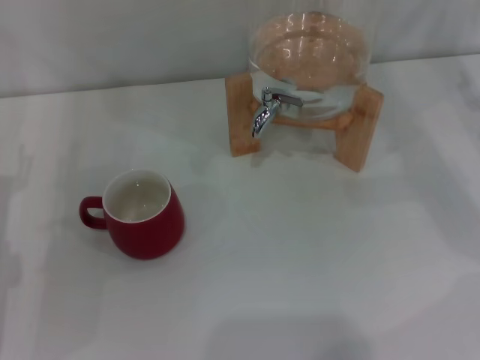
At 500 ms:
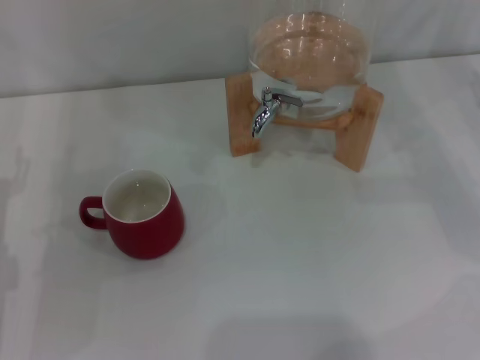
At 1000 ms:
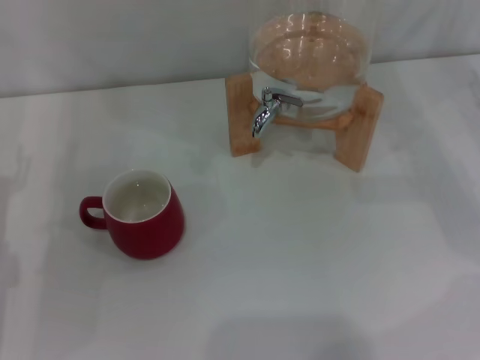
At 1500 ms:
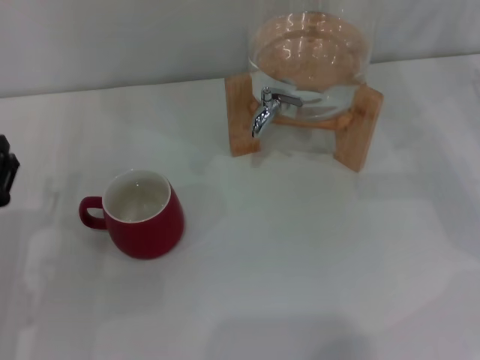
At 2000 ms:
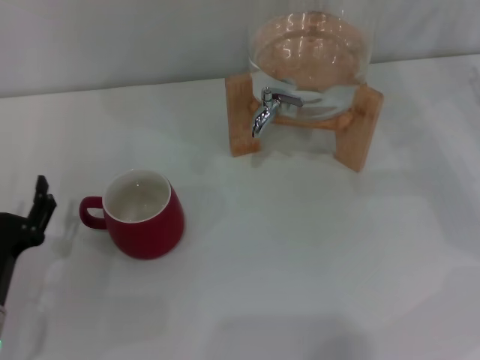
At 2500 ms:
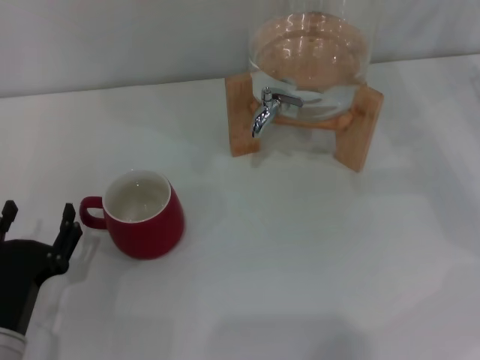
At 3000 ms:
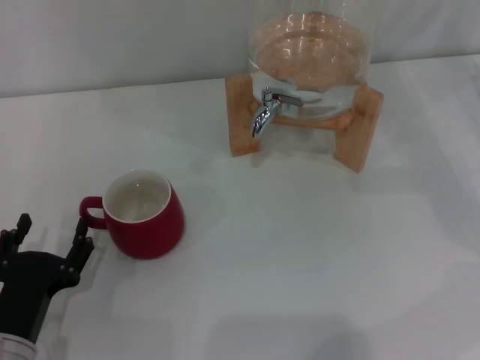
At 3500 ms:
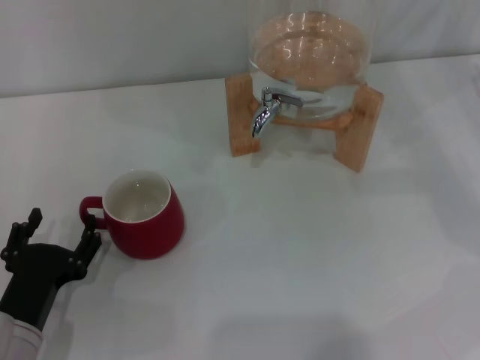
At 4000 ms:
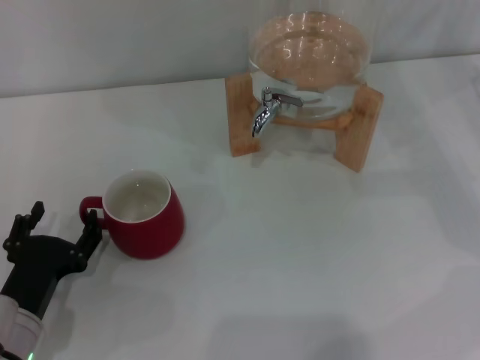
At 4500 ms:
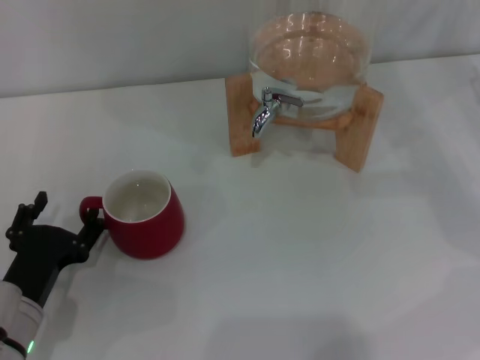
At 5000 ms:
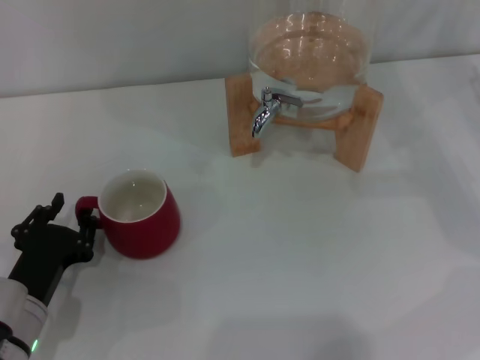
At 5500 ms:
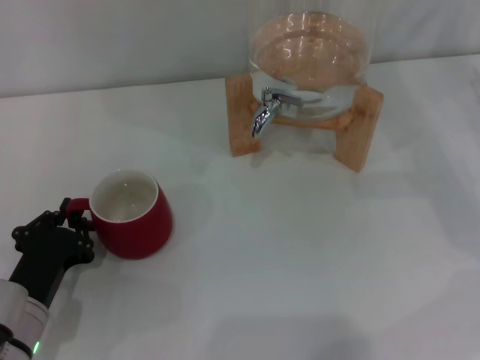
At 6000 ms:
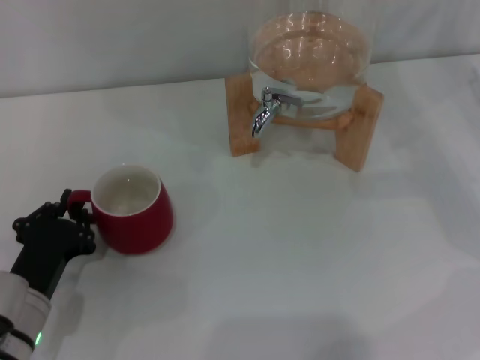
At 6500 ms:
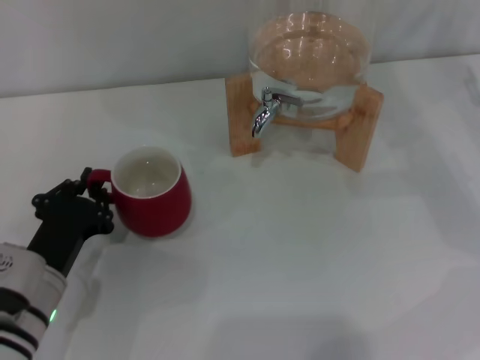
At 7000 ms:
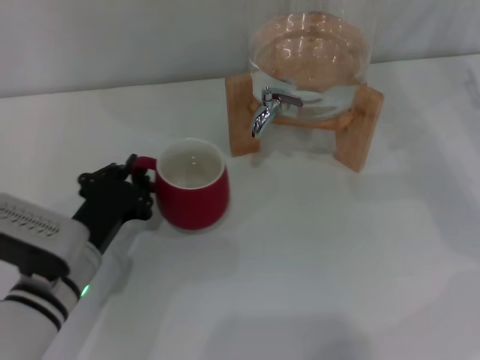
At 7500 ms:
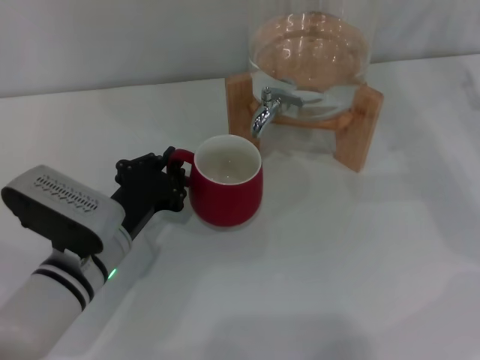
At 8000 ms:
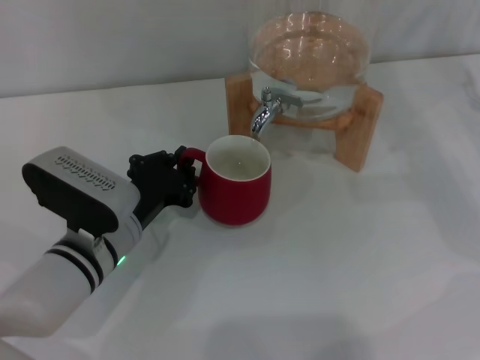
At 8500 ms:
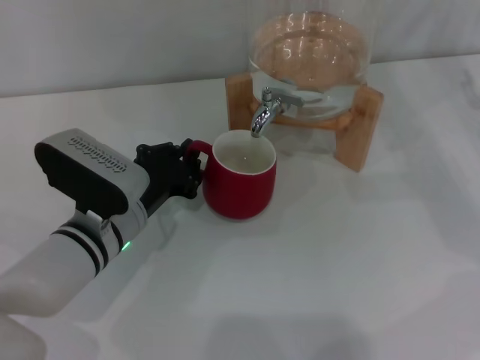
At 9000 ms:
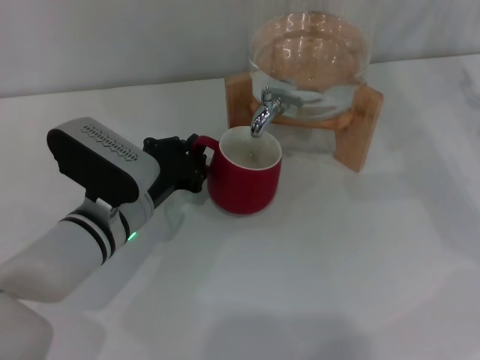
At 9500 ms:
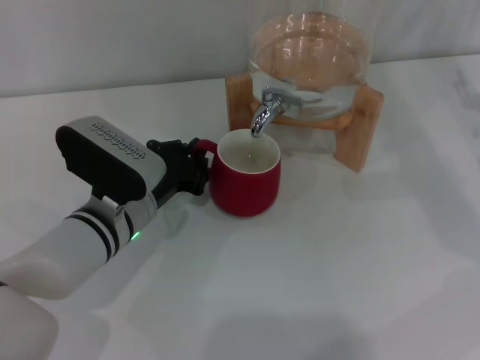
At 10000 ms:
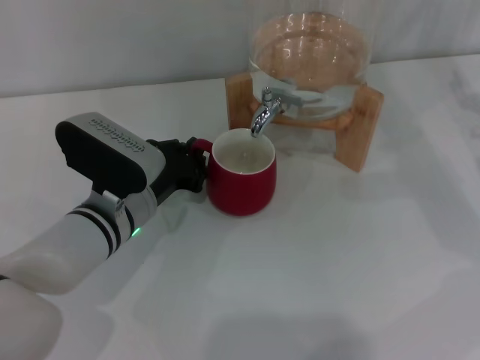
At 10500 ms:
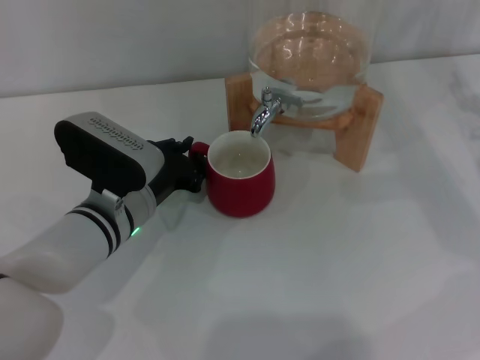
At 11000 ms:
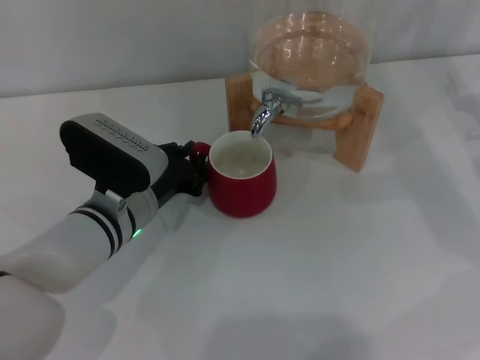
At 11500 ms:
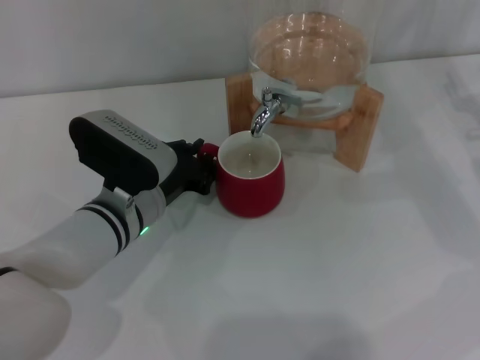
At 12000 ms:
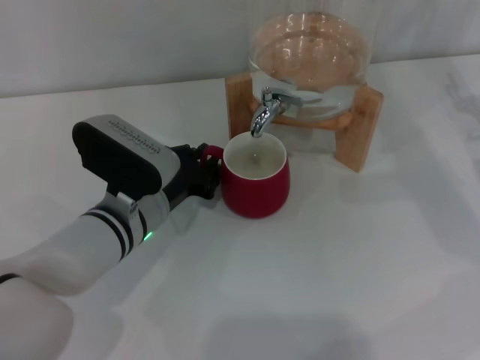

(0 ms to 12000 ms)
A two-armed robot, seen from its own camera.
Task of the whole recording: the left gripper pick up the red cup and place it horizontally under the faucet, the right gripper turn on the faucet to fill the cup, and then turn off the faucet.
0 ms - 2000 ms: The left gripper moves backward and downward, about 10 cm.
2000 ms - 4000 ms: The grippers stay close to where they were, moving slightly.
4000 ms - 6000 ms: The left gripper closes.
6000 ms - 8000 ms: The left gripper goes approximately 10 cm to the right and forward.
8000 ms - 10000 ms: The grippers stay close to where they were, moving slightly.
10000 ms - 12000 ms: The two grippers keep their place.

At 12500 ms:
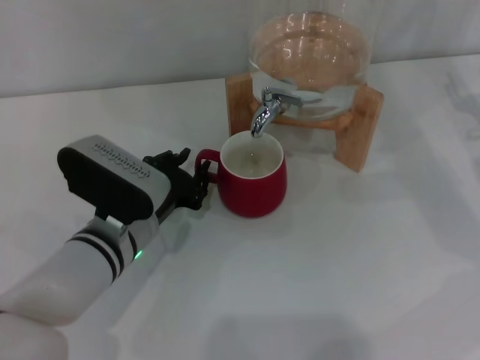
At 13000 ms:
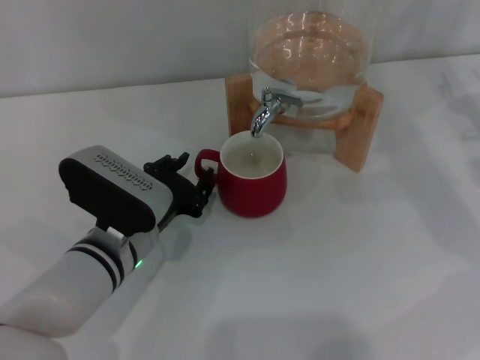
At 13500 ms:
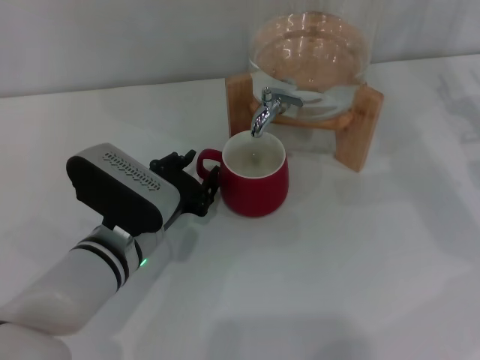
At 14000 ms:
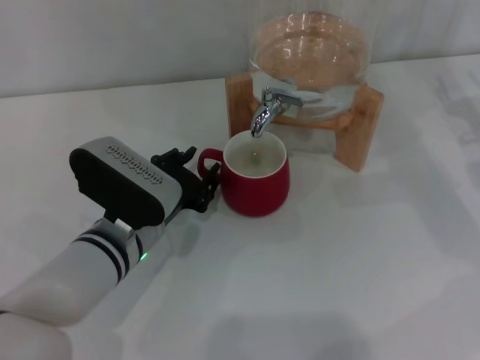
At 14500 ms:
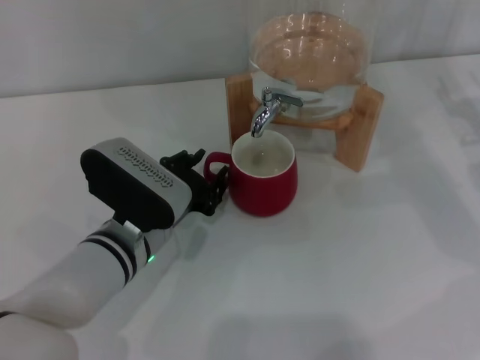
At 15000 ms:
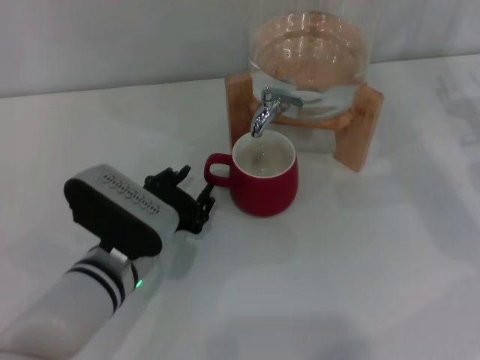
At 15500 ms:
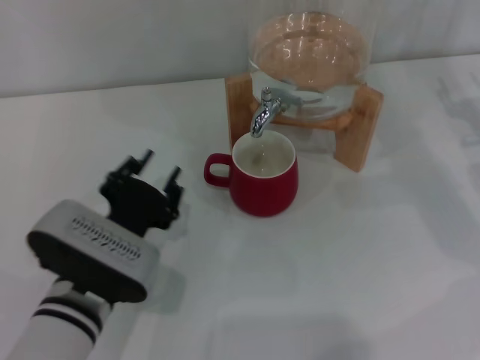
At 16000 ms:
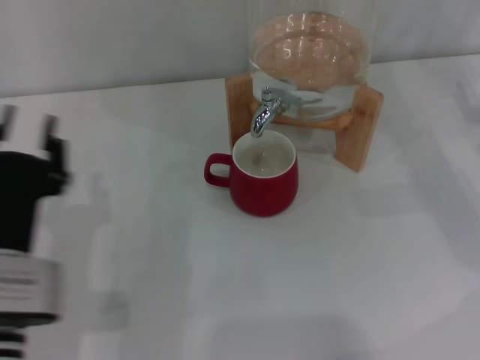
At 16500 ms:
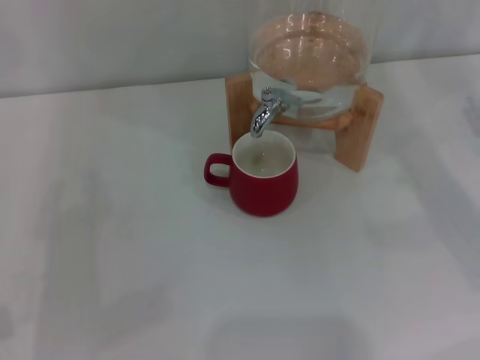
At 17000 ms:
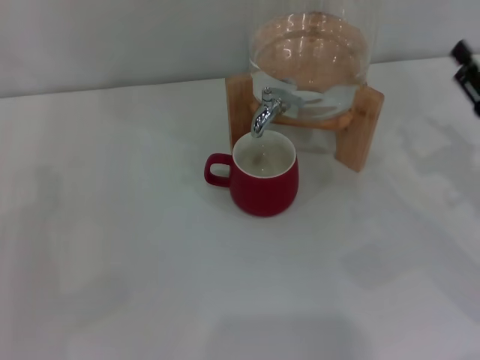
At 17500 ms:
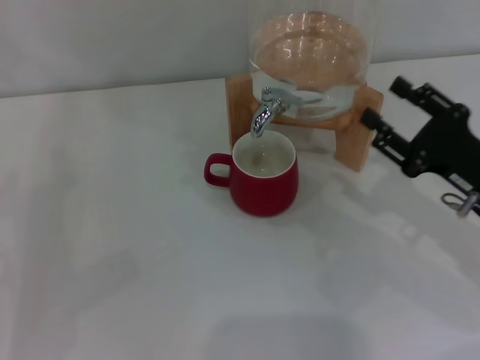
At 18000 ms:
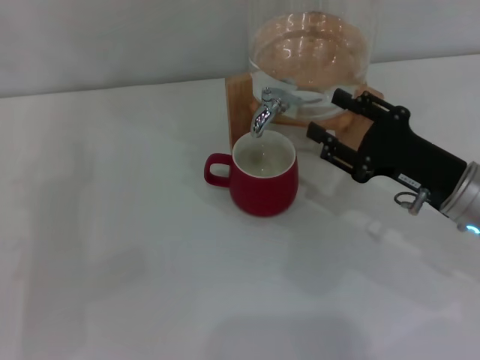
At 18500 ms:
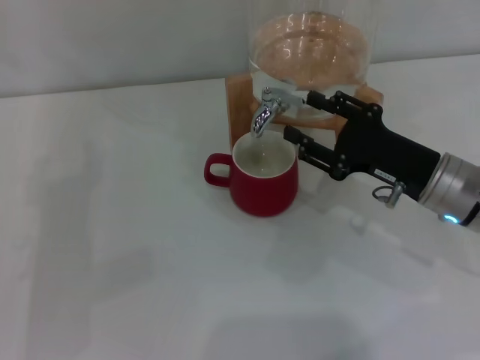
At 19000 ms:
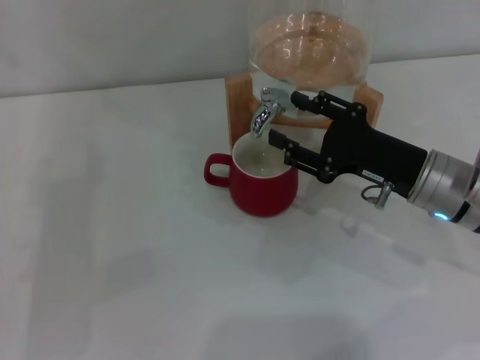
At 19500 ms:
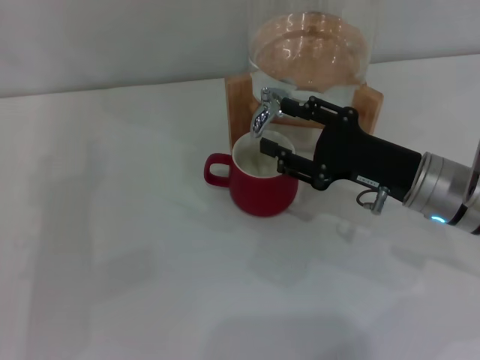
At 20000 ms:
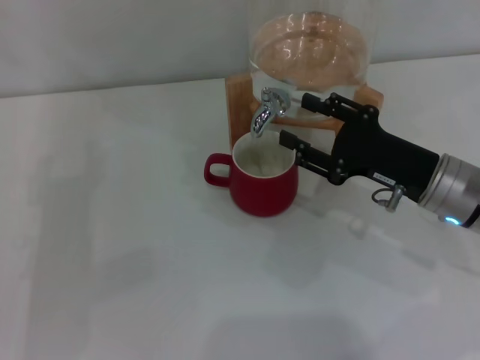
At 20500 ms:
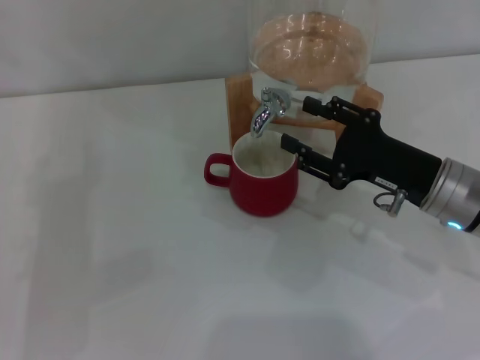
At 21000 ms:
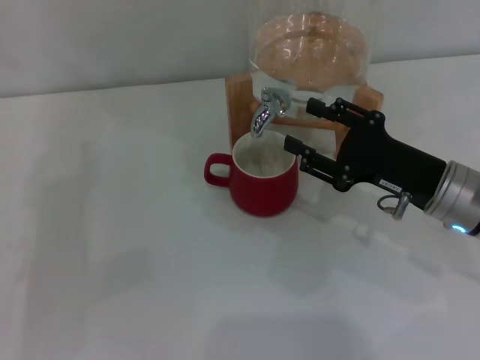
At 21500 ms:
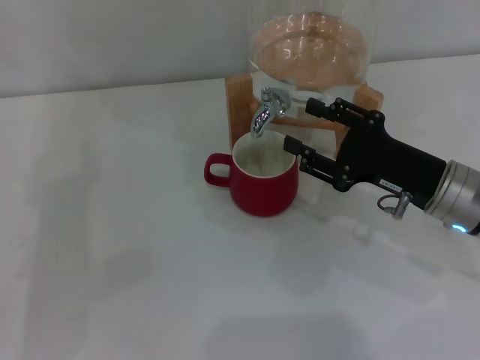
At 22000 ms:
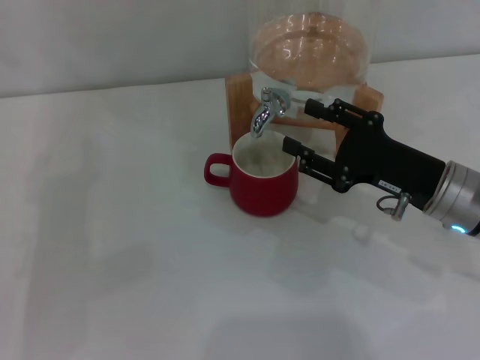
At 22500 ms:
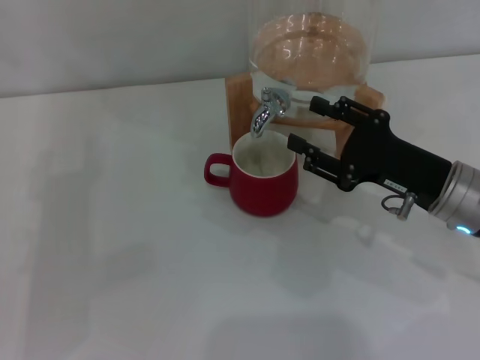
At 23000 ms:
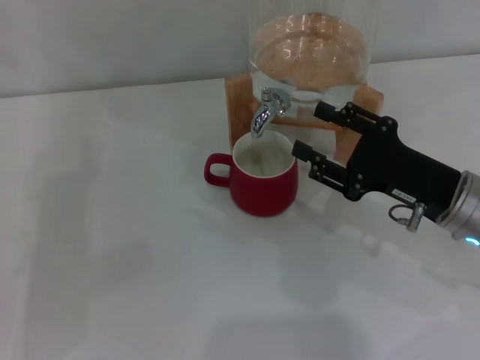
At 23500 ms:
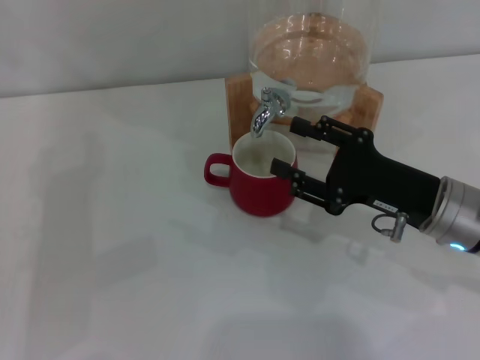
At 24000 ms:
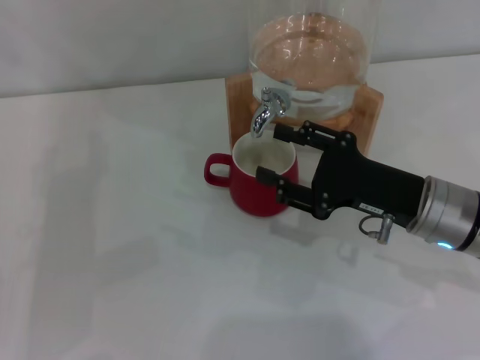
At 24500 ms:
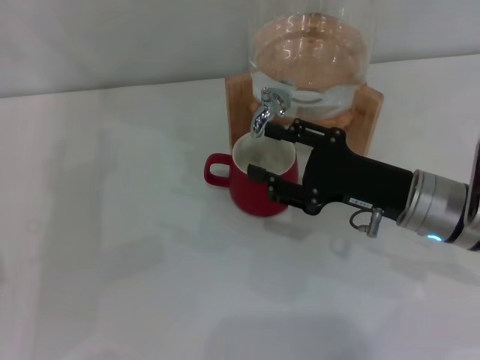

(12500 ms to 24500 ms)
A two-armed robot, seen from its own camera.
Task of the whole recording: the left gripper pick up the red cup and place it horizontally under the faucet, the right gripper turn on the faucet to fill the cup, and then turn off the faucet.
Step, 12500 ms - 15000 ms: Move the cup beneath the water dispenser nozzle with the left gripper.
Step, 15500 ms - 24000 ms: Open the dispenser valve and fill the cup with water with the right gripper.
12500 ms - 14500 ms: The grippers stay close to where they were, moving slightly.
14500 ms - 16500 ms: The right gripper is displaced backward by approximately 5 cm. Meanwhile the left gripper shifts about 20 cm to the left.
16500 ms - 18500 ms: The right gripper goes about 15 cm to the left; the left gripper moves roughly 5 cm, and opens.
18500 ms - 20500 ms: The grippers stay close to where they were, moving slightly.
20500 ms - 22500 ms: The two grippers keep their place.
22500 ms - 24500 ms: The grippers make only small movements.

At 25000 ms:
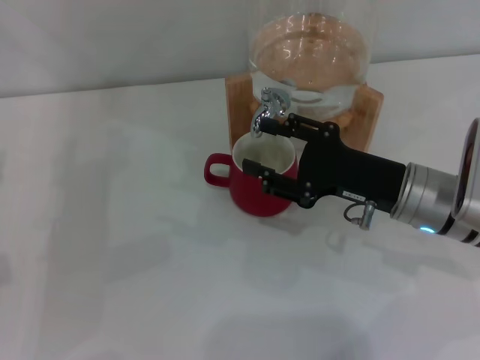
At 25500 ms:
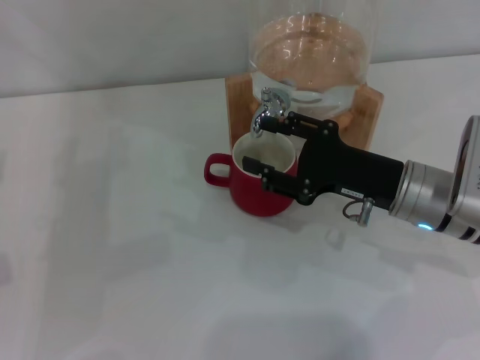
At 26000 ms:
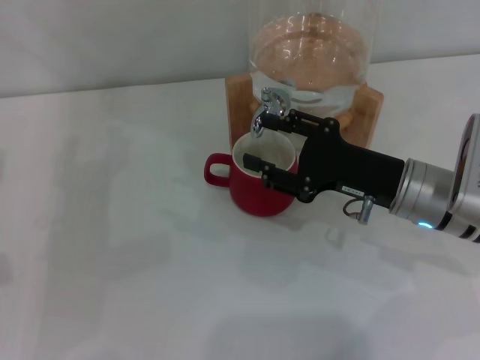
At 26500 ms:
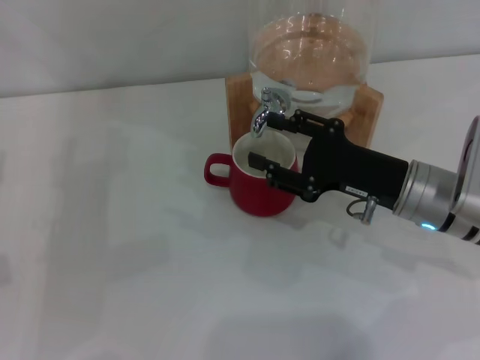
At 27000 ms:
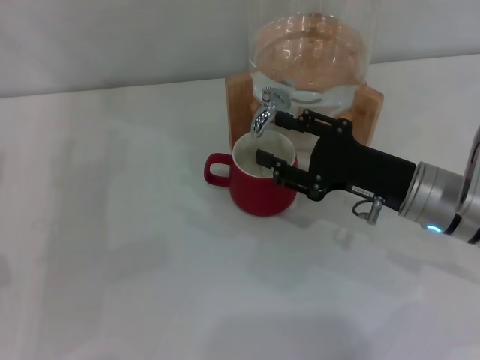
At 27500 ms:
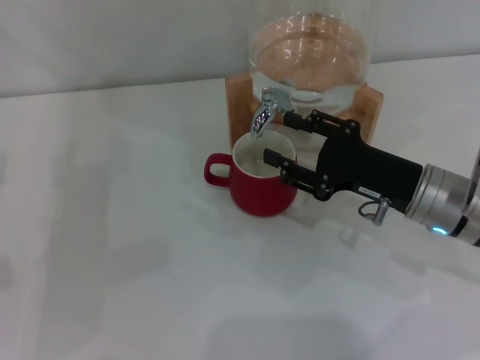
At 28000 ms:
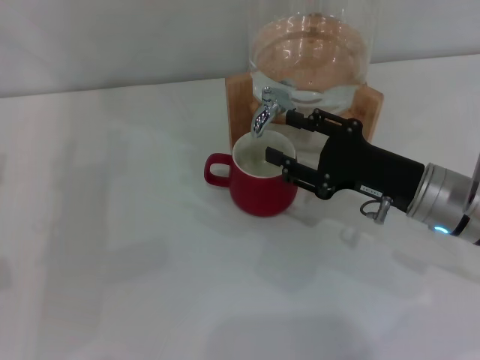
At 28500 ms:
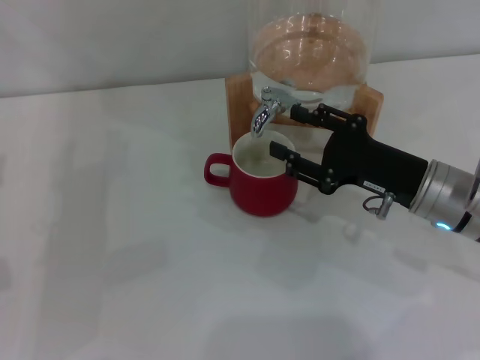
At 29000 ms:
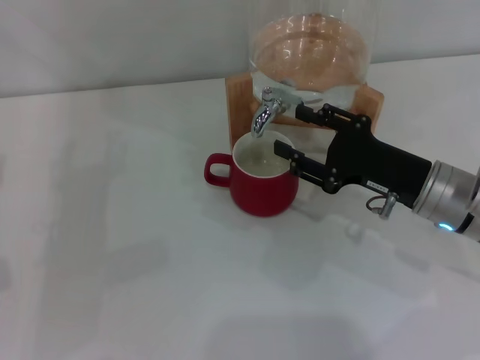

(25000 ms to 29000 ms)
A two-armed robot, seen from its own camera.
Task of the whole recording: the left gripper pick up the red cup and place it horizontally under the faucet, the right gripper turn on the faucet to fill the cup, and then turn off the faucet.
25000 ms - 27000 ms: The two grippers keep their place.
27000 ms - 29000 ms: Both grippers stay put.
